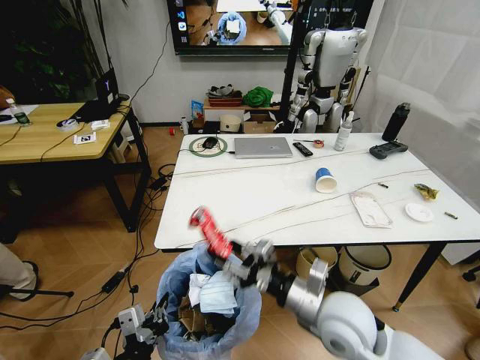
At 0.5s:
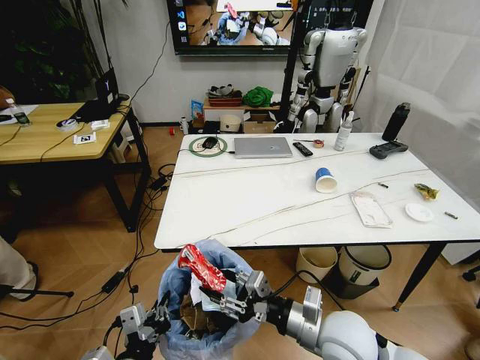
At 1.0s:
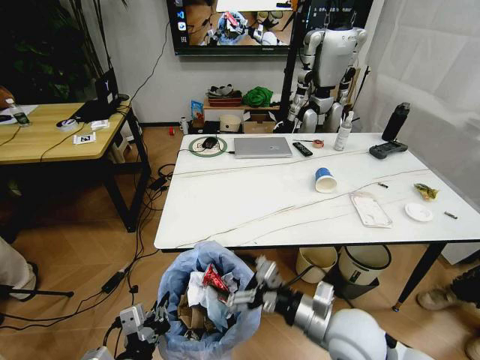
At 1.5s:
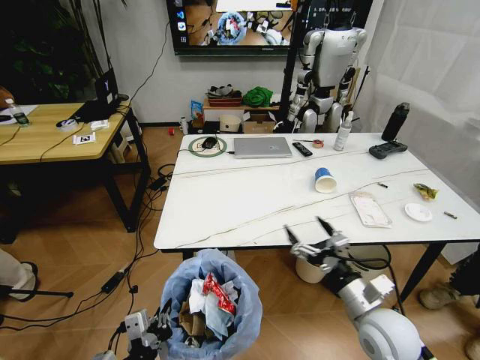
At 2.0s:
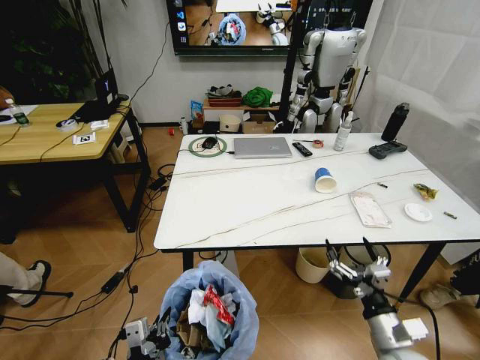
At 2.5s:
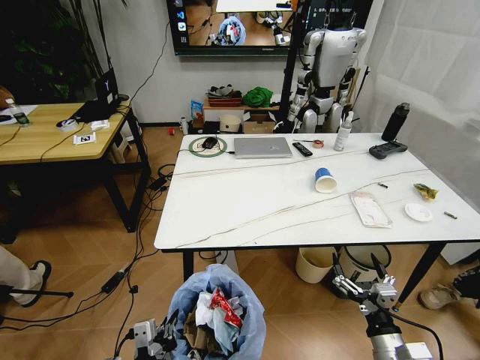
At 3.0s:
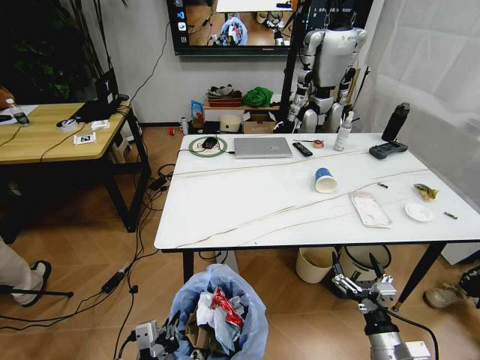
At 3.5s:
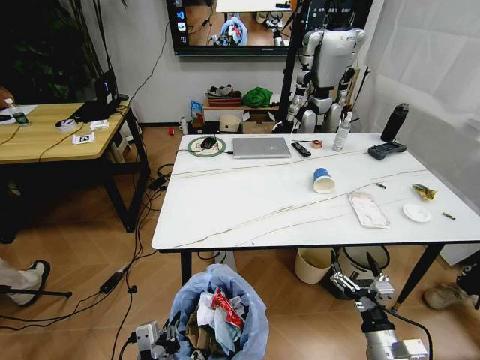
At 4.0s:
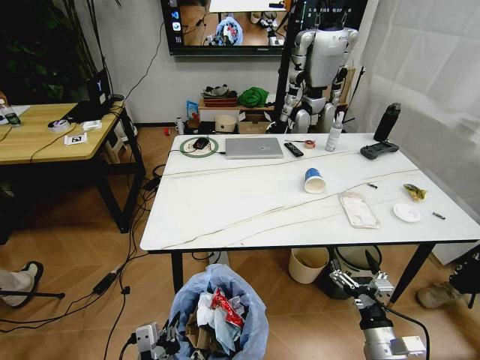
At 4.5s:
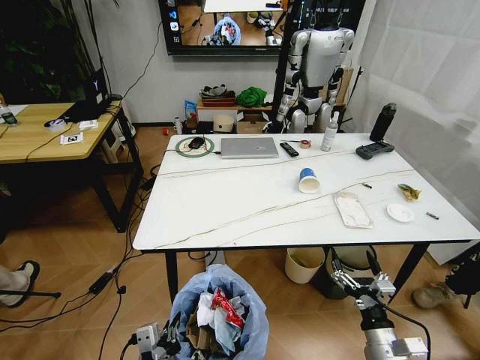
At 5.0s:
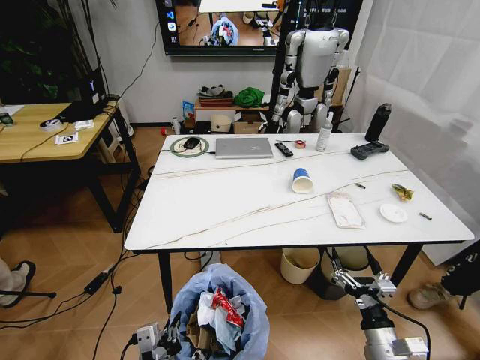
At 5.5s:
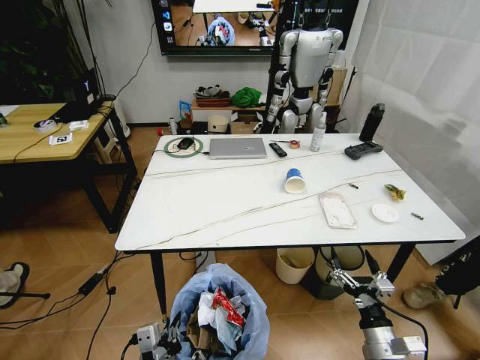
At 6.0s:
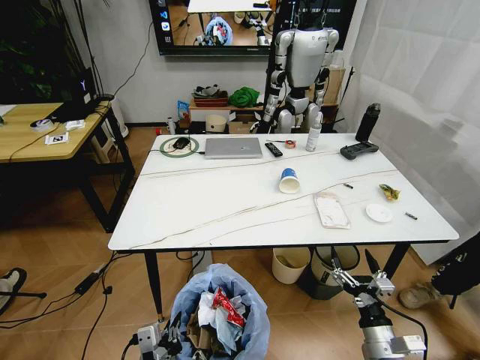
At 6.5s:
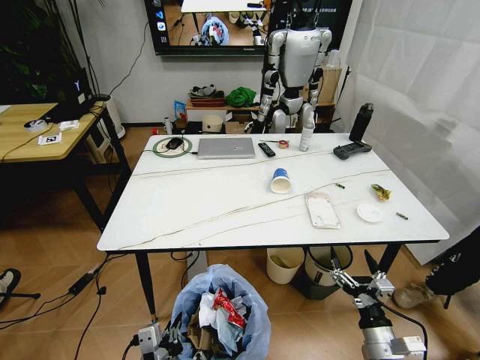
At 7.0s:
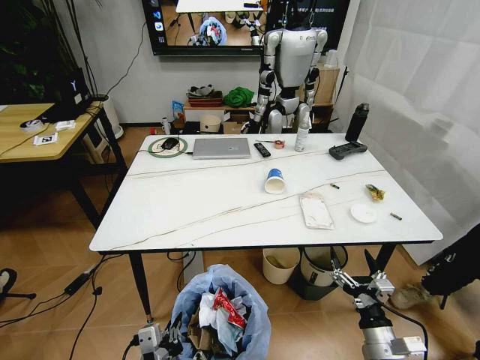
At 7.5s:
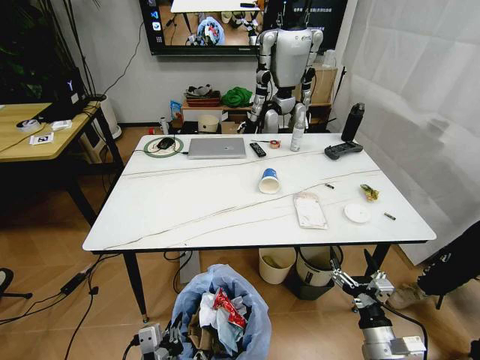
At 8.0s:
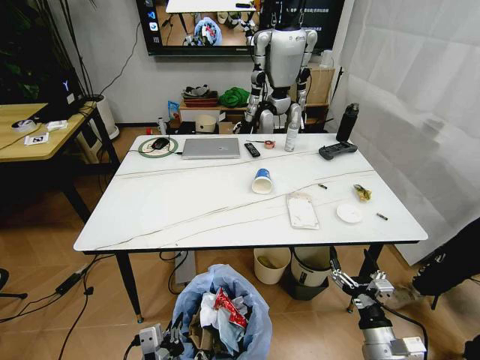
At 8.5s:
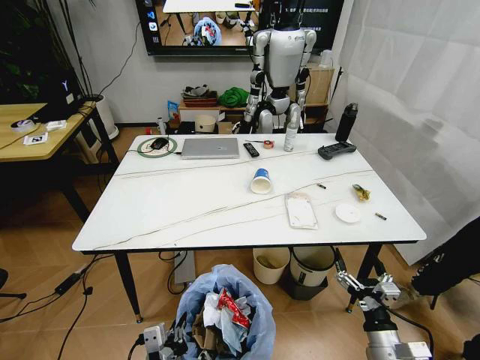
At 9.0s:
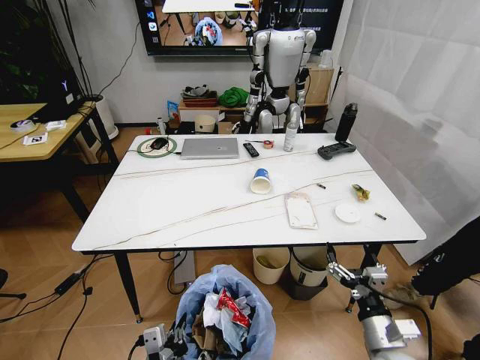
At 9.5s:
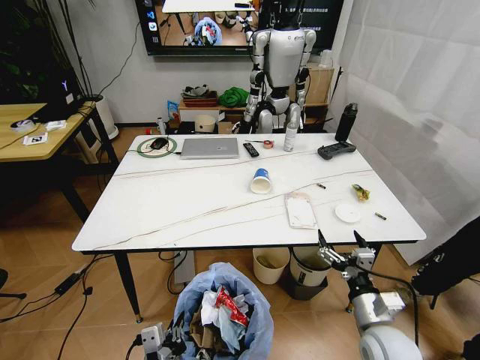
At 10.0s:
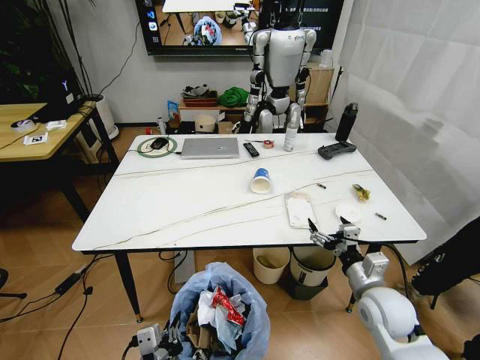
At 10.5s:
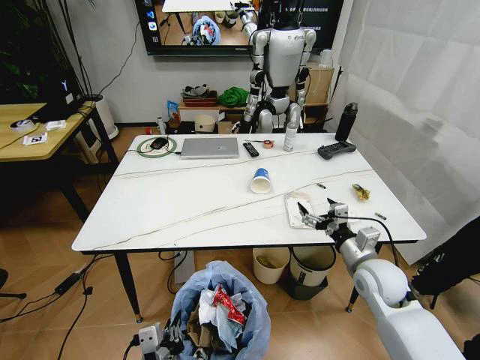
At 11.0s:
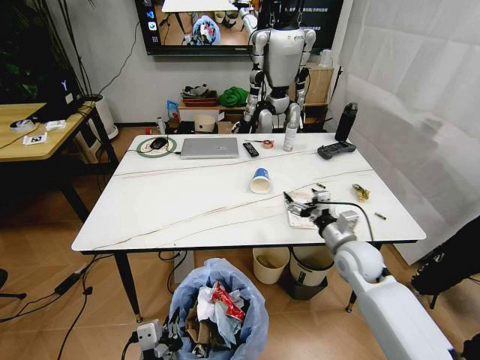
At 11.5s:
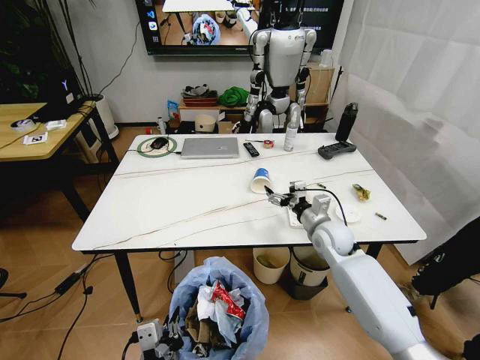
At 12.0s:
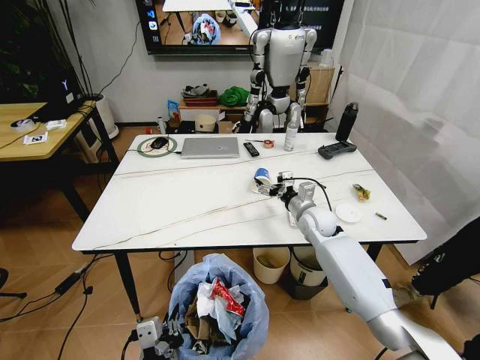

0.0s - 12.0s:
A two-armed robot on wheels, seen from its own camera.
Task of the whole recording: Pick up the trash bin and place the trash from the table into it.
0.0s - 2.0s: The right gripper is displaced to the right, downward and backward by approximately 20 cm, and opens.
8.0s - 10.0s: The right gripper travels forward and upward by approximately 15 cm.
10.0s - 12.0s: The right gripper goes roughly 25 cm forward.

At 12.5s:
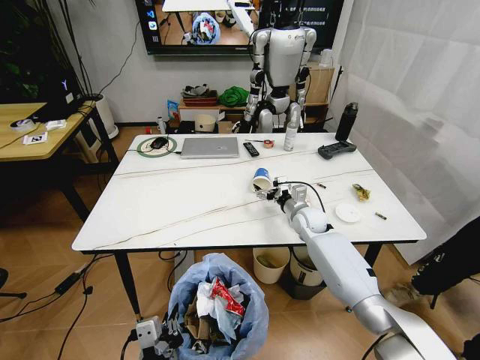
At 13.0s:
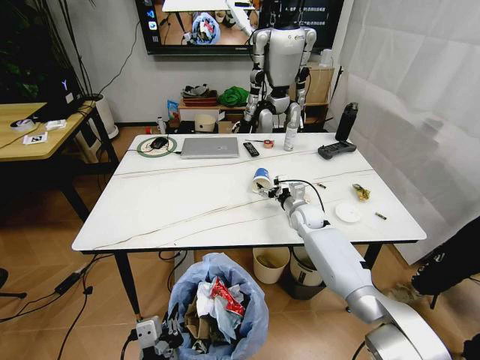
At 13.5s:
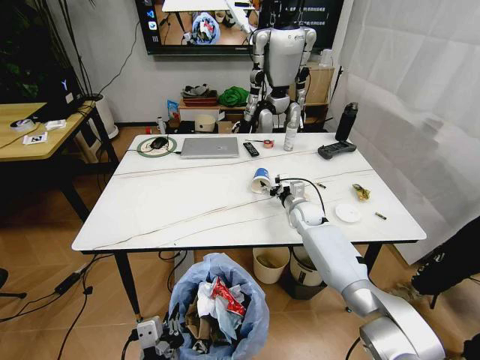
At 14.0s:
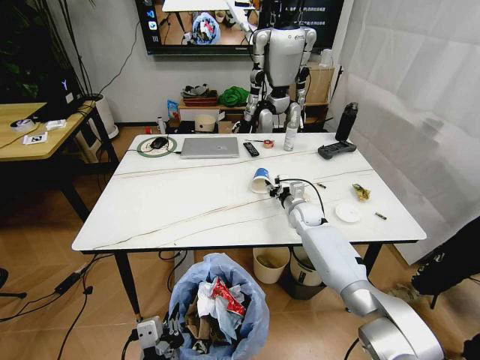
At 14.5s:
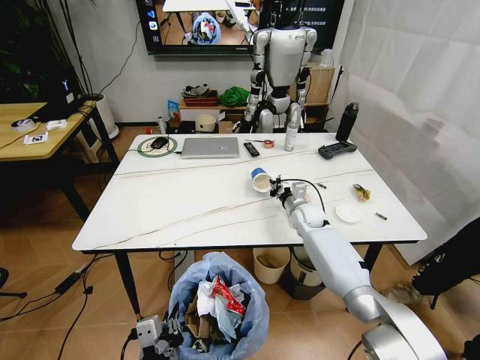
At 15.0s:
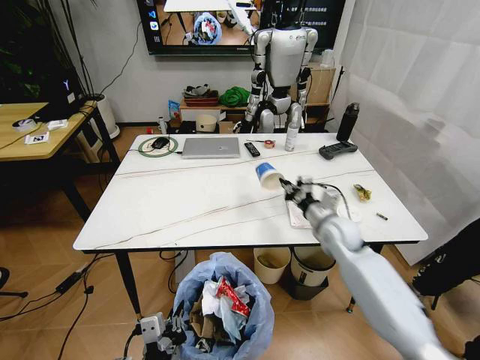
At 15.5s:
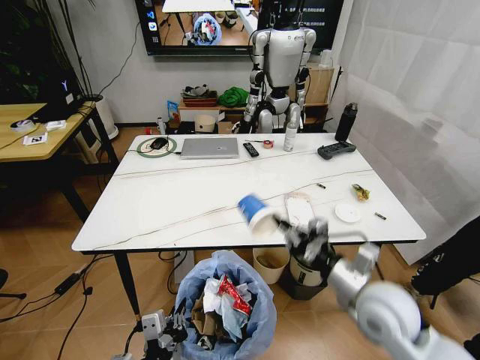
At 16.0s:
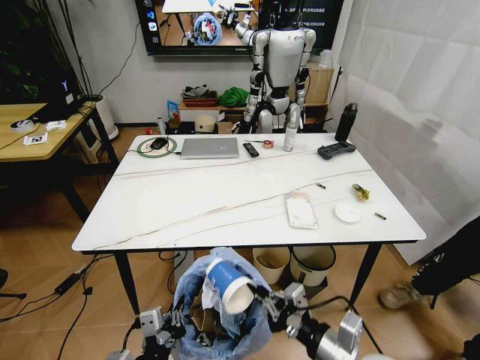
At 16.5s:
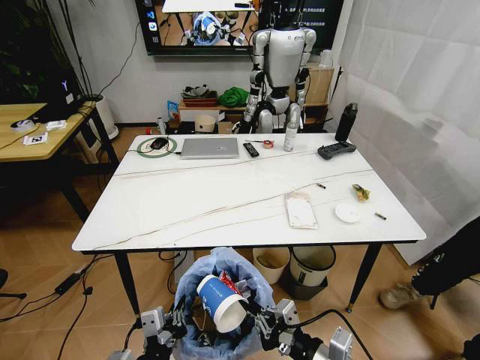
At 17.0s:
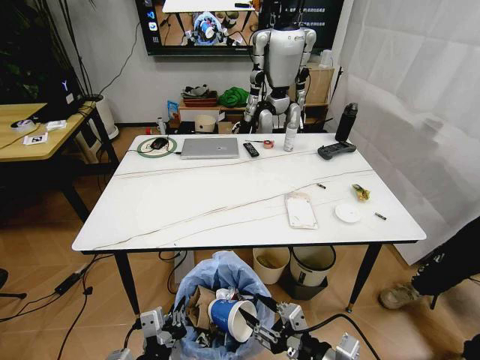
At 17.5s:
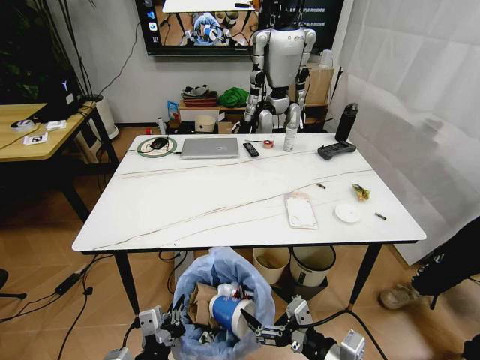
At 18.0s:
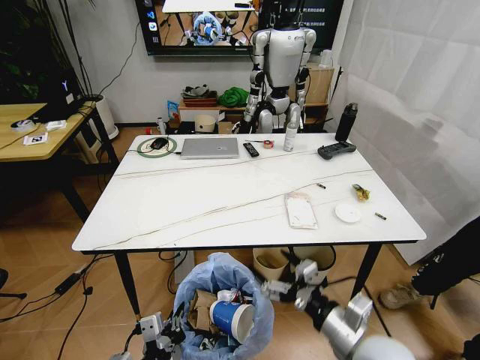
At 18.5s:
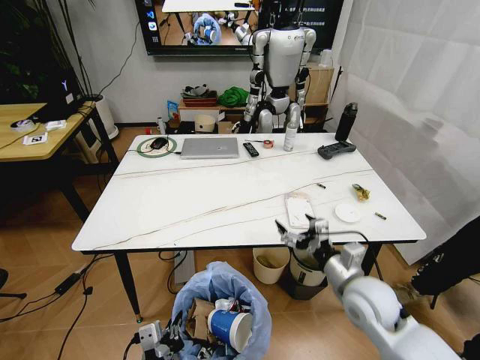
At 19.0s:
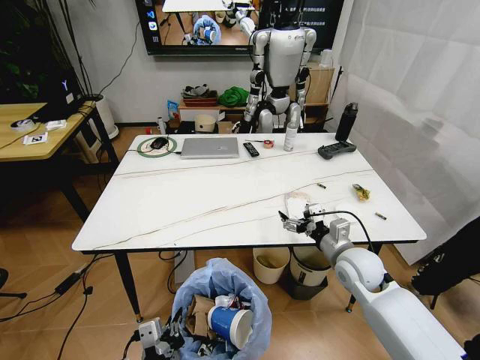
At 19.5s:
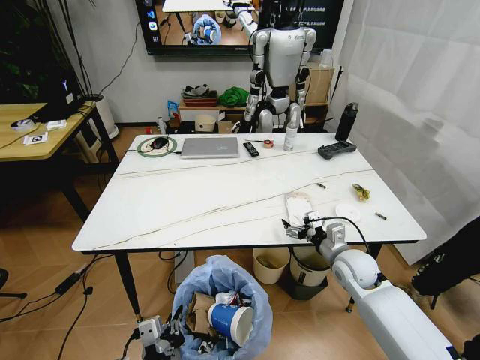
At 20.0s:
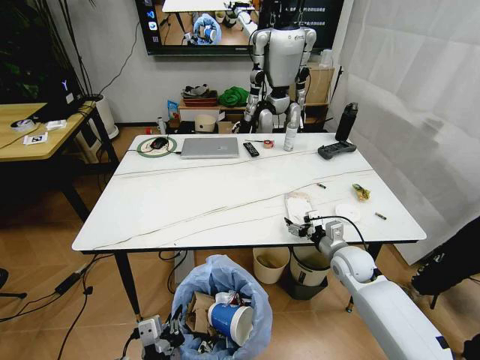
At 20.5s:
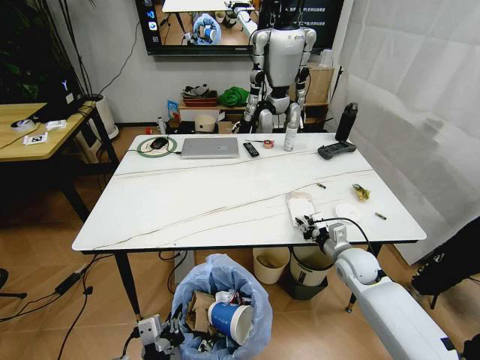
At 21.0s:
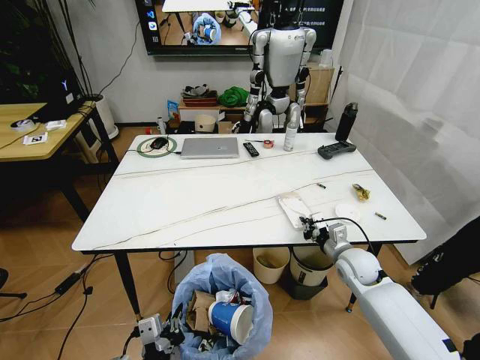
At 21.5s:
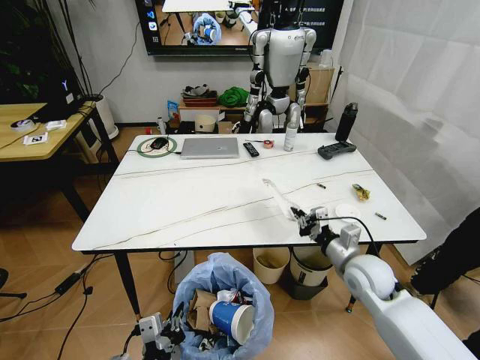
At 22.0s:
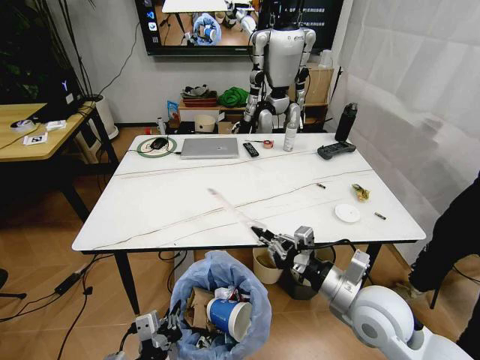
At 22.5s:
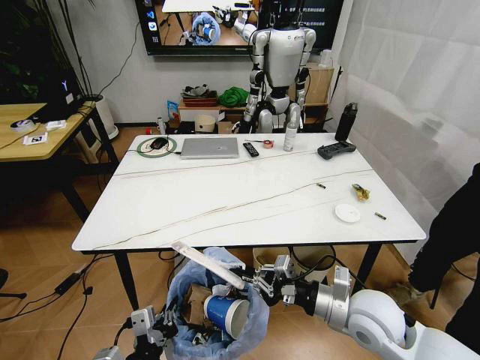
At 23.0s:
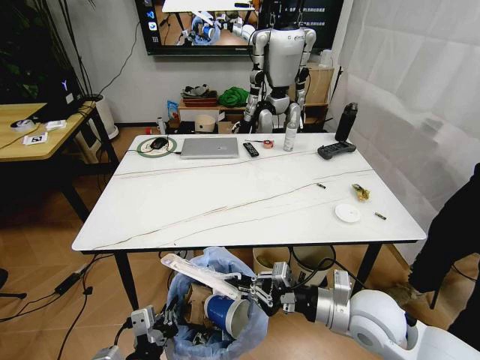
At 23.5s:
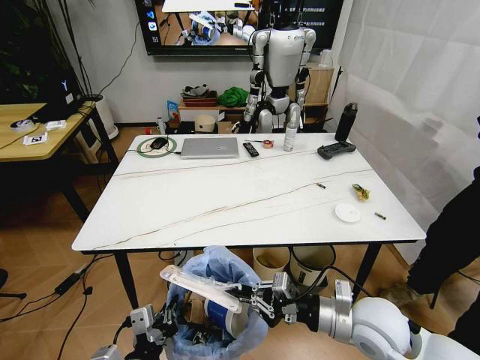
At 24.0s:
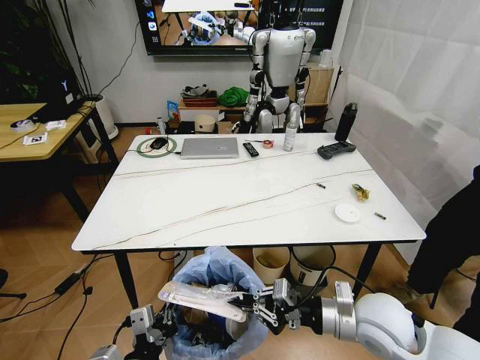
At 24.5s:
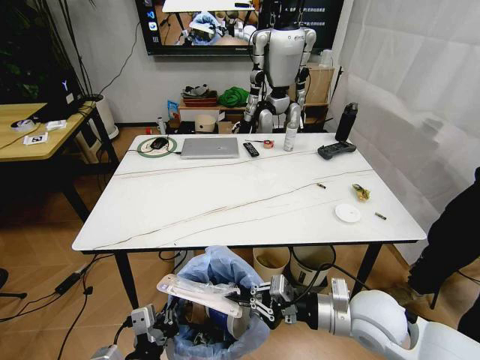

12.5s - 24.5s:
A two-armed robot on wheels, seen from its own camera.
Task of the whole recording: Pick up the trash bin and place the trash from the table into it.
12.5s - 14.5s: The right gripper closes up.
14.5s - 16.5s: The right gripper travels backward by about 40 cm.
16.5s - 18.5s: The right gripper is displaced forward by roughly 15 cm, and opens up.
18.5s - 20.5s: The right gripper is displaced forward and downward by some 15 cm, and closes up.
20.5s - 22.5s: The right gripper moves backward and upward, some 20 cm.
22.5s - 24.5s: The grippers move only a little.

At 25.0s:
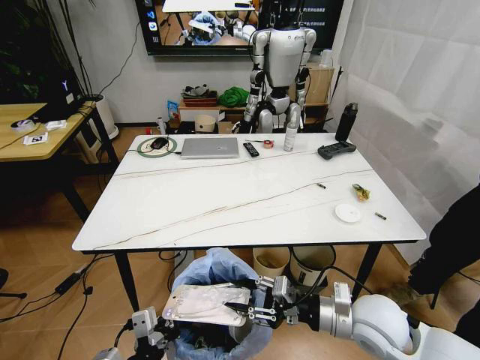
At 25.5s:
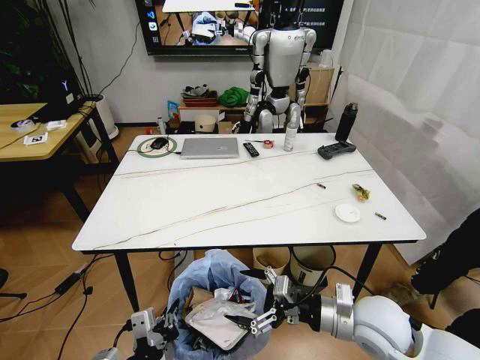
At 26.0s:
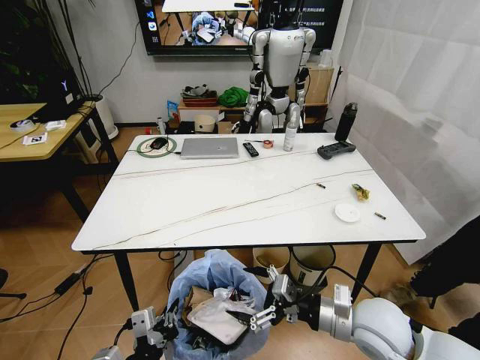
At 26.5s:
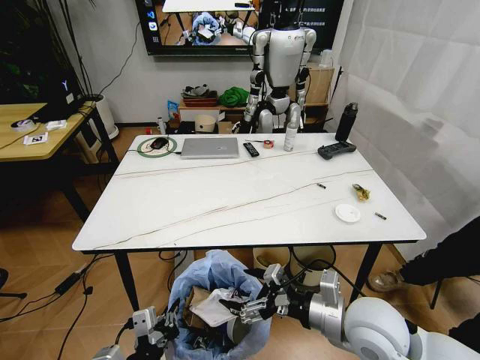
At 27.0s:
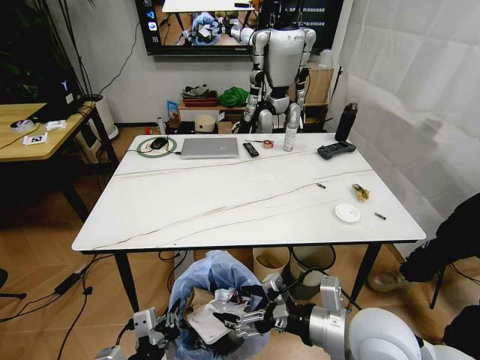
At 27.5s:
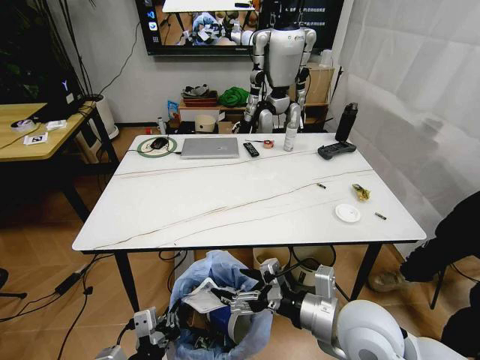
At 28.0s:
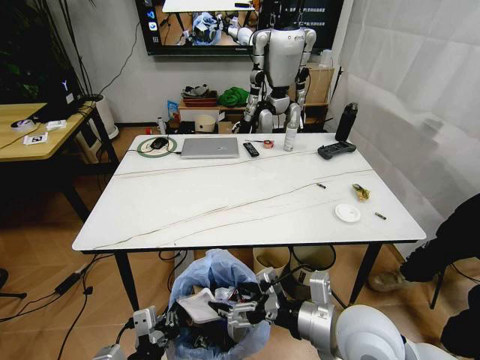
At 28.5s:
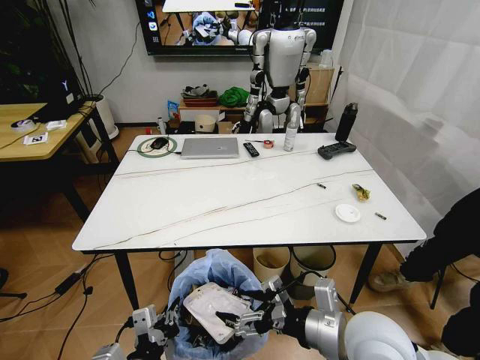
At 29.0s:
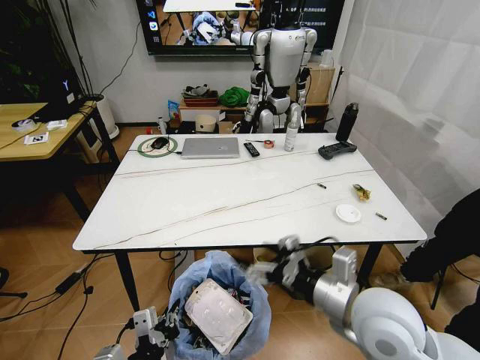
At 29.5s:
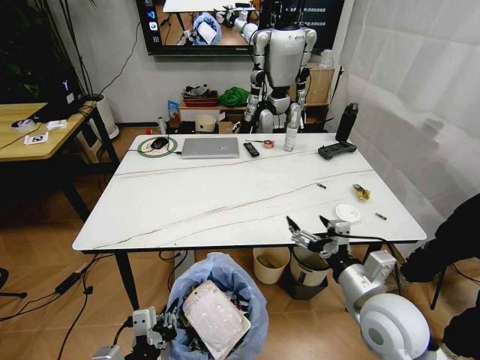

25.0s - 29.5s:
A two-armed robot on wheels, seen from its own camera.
Task of the whole recording: Pick up the trash bin and place the trash from the table into it.
25.0s - 27.0s: The right gripper is displaced upward by roughly 5 cm, and opens its fingers.
